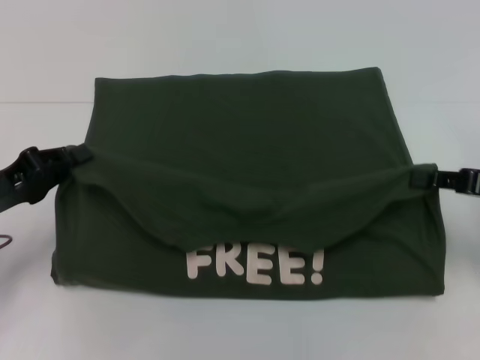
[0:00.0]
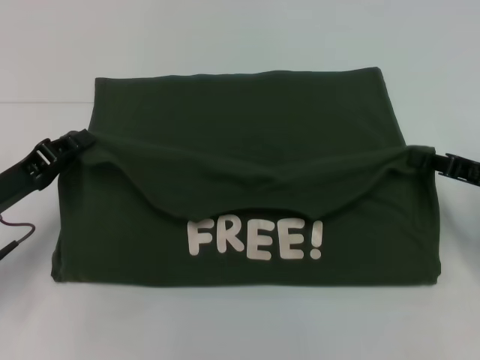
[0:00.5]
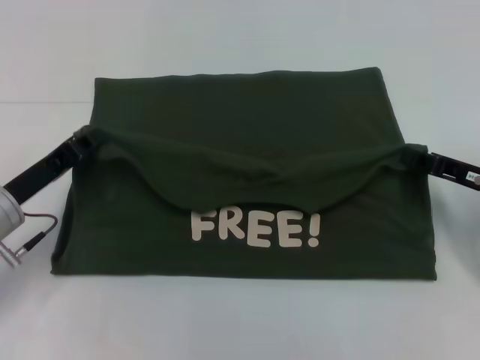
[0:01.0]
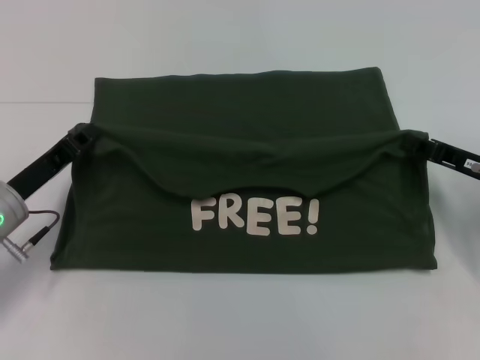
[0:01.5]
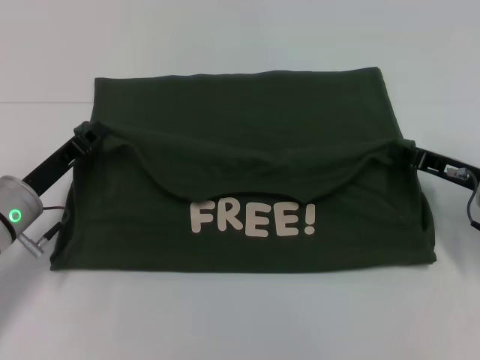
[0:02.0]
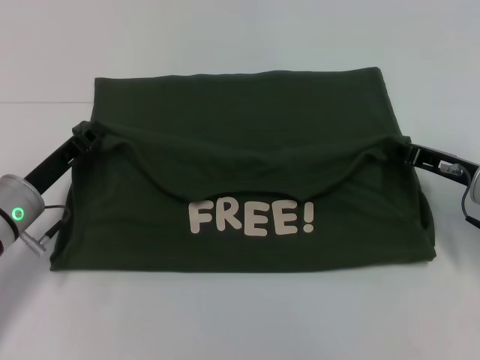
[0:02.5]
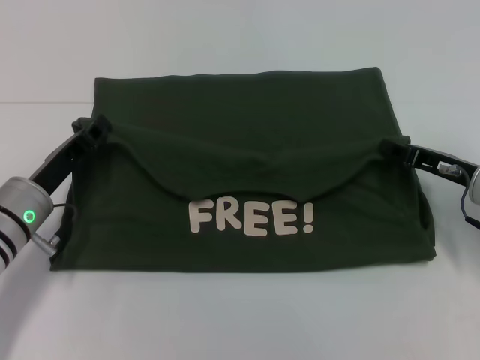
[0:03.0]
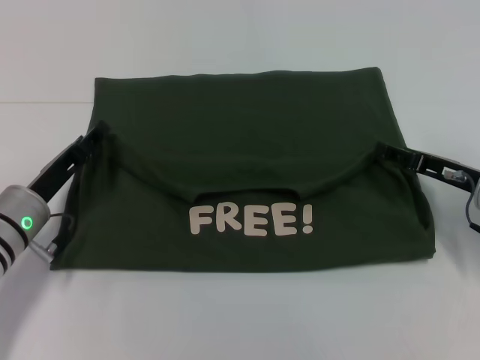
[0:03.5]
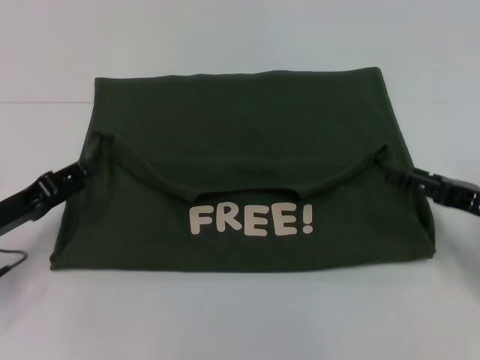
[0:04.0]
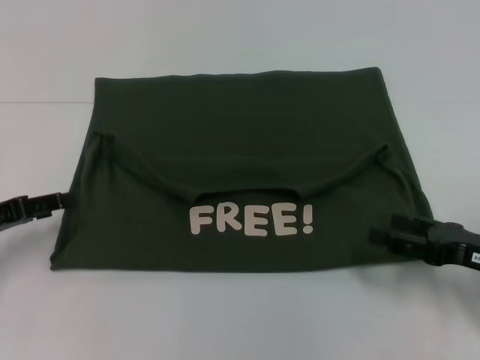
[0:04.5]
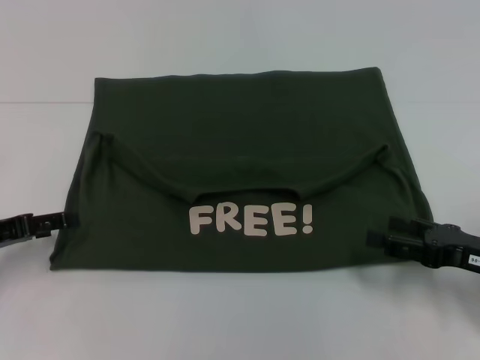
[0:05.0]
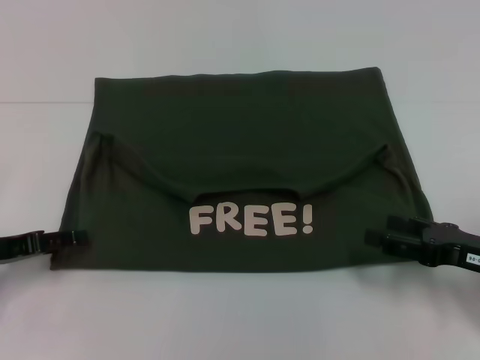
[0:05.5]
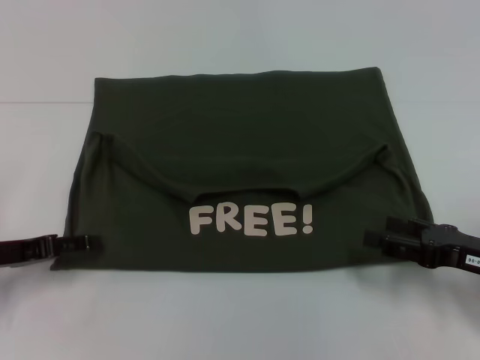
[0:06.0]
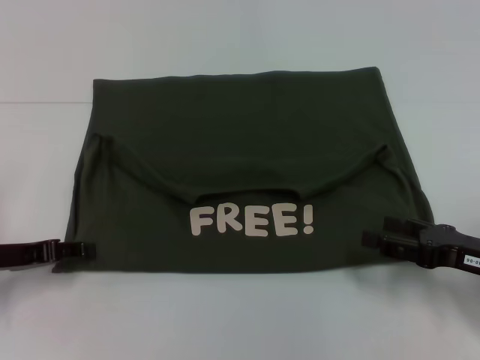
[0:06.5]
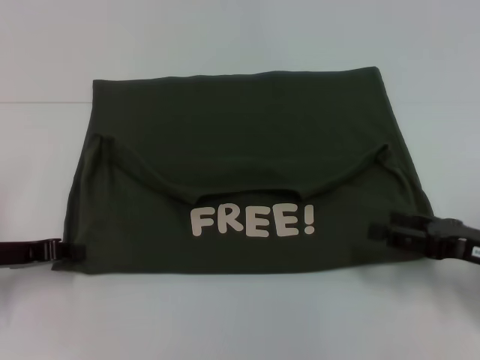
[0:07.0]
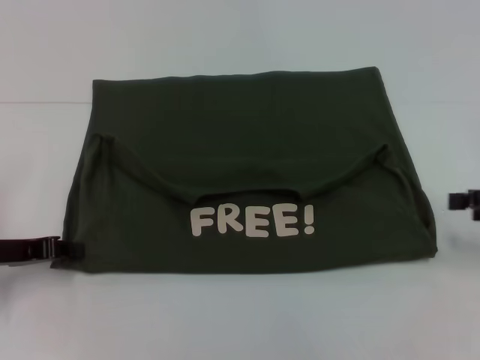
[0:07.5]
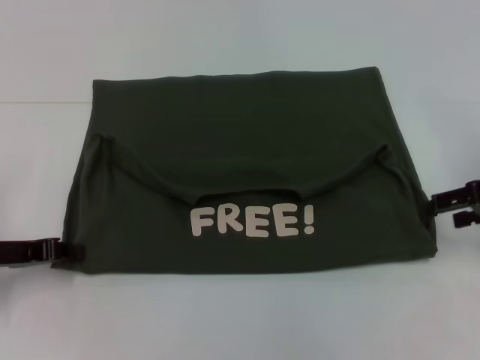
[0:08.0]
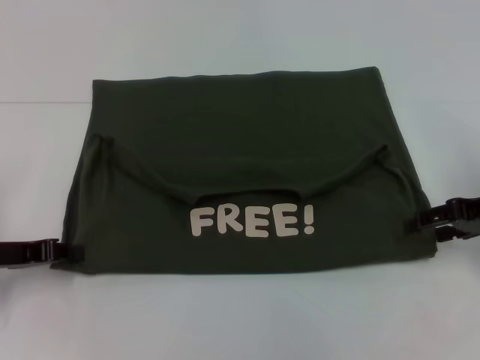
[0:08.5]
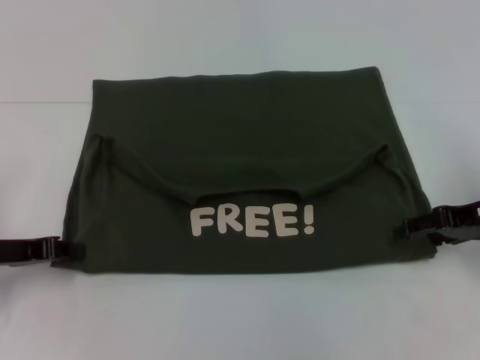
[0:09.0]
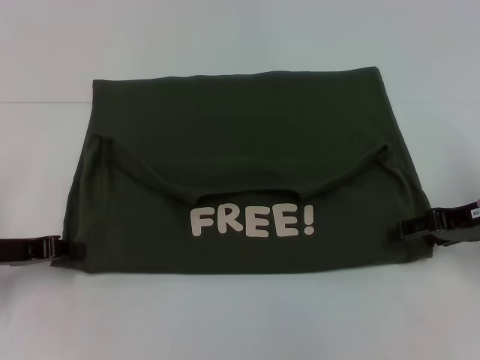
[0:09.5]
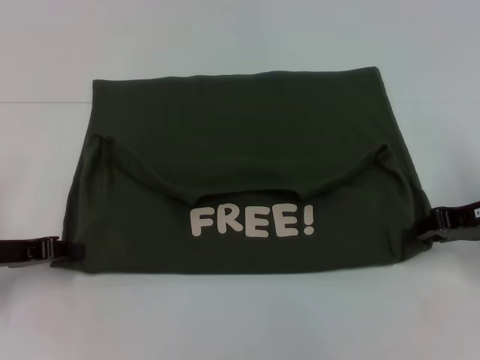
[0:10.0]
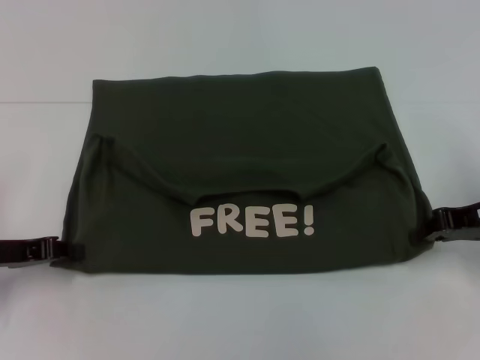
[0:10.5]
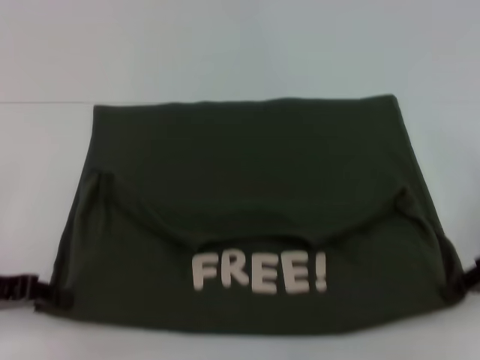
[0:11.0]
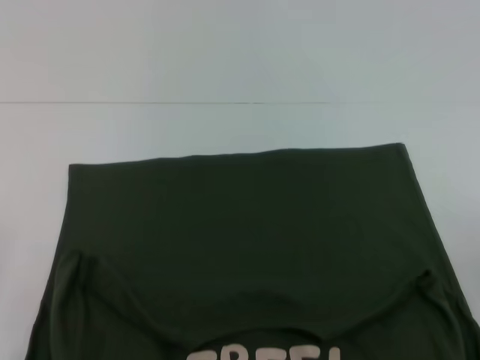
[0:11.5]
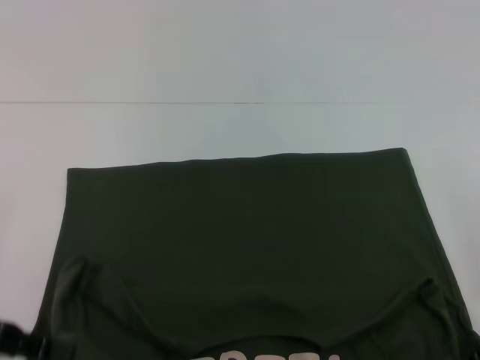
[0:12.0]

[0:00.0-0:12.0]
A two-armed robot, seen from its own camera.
Step, 0:00.0 to 0:03.5: Fold the clothes with your left hand.
Step, 0:00.0 to 0:03.5: Fold the clothes with your right hand.
Step, 0:04.0 to 0:11.5: Pull the clothes with your left hand.
Step, 0:04.0 to 0:11.5: Pull the clothes with your right hand.
0:00.0 to 0:02.0: The left gripper goes about 5 cm to the right. The right gripper moves downward, about 5 cm.
0:02.0 to 0:04.0: The left gripper goes about 5 cm to the left, and opens up. Meanwhile the right gripper goes some 5 cm backward, and opens up.
0:06.0 to 0:08.0: The right gripper is displaced upward and forward by about 15 cm. Meanwhile the left gripper closes.
0:08.0 to 0:10.0: The right gripper closes.
0:10.0 to 0:12.0: Both grippers move backward, roughly 10 cm.

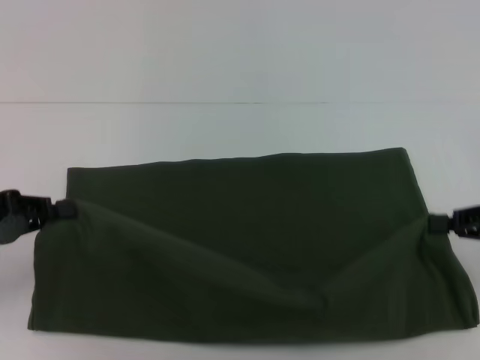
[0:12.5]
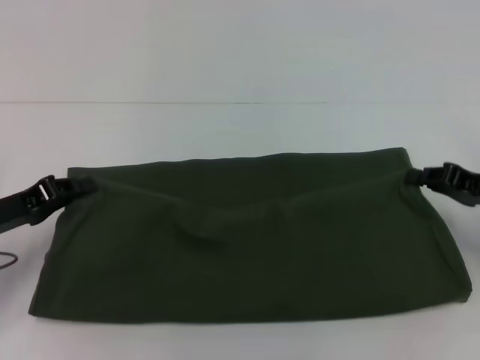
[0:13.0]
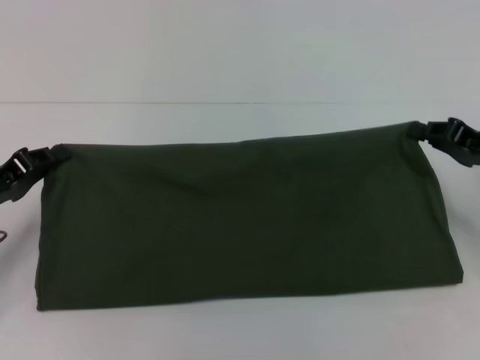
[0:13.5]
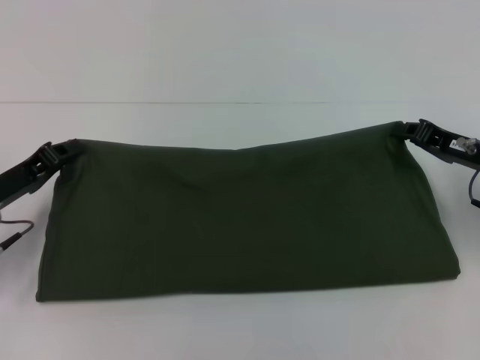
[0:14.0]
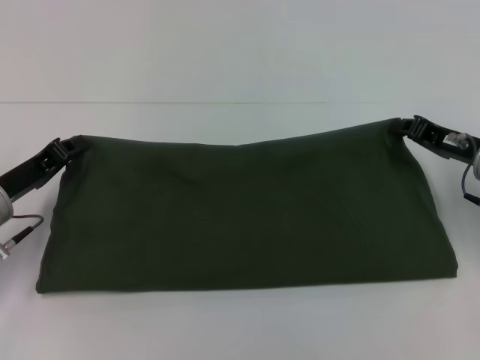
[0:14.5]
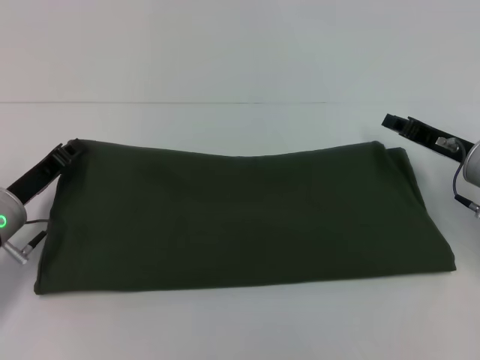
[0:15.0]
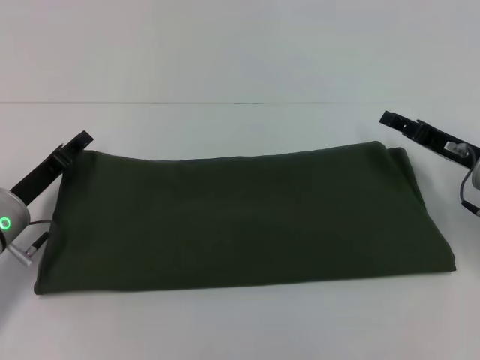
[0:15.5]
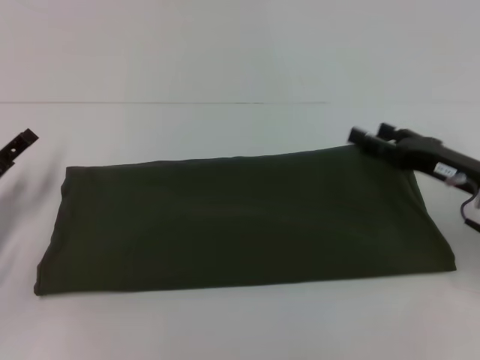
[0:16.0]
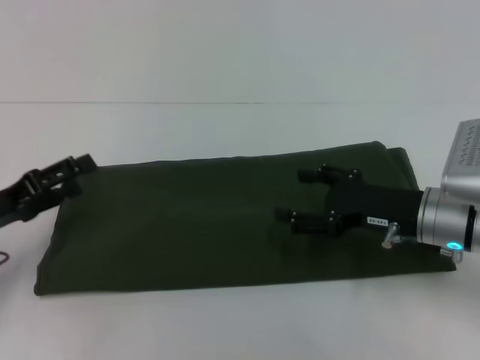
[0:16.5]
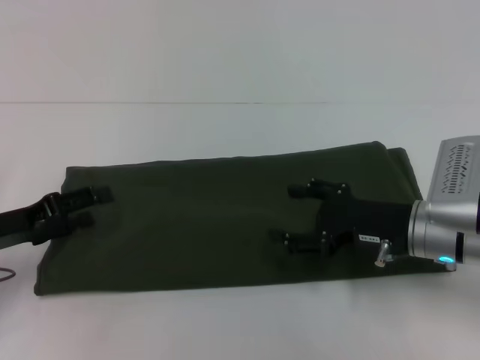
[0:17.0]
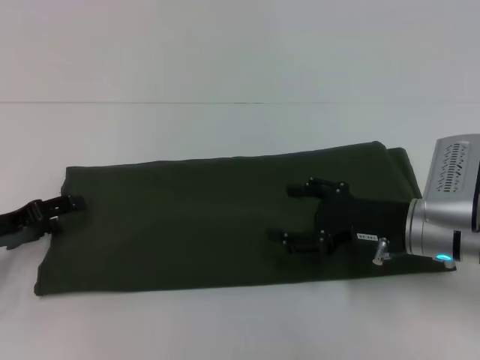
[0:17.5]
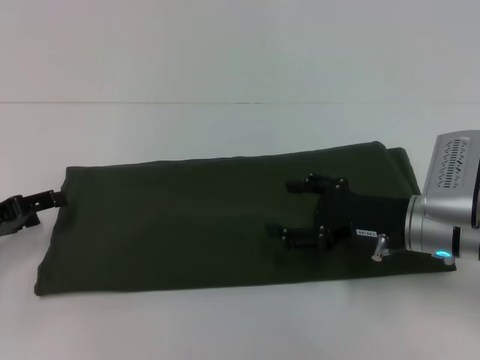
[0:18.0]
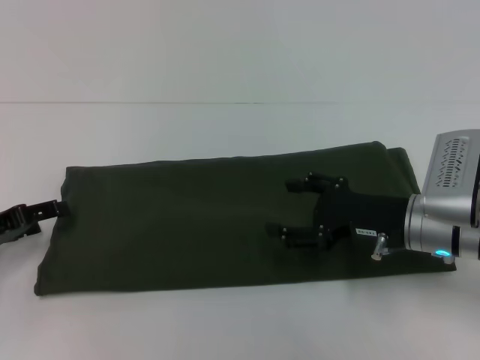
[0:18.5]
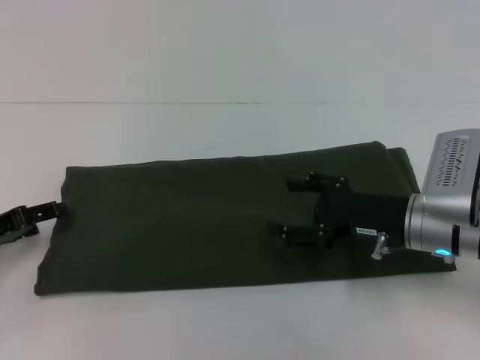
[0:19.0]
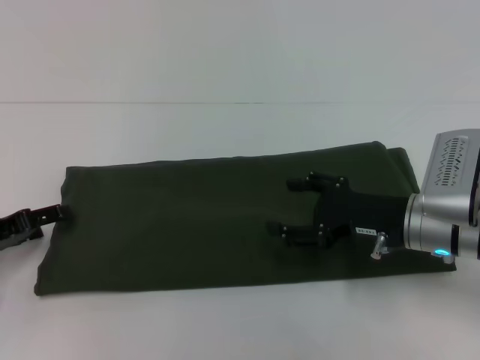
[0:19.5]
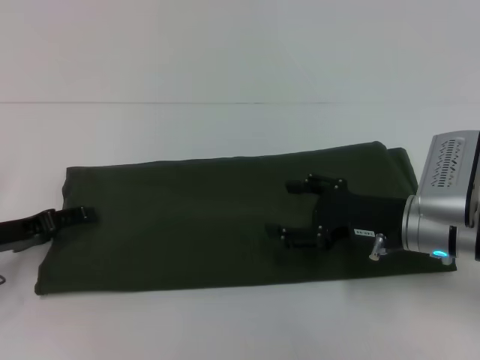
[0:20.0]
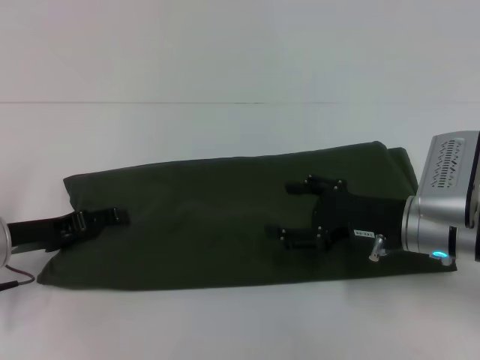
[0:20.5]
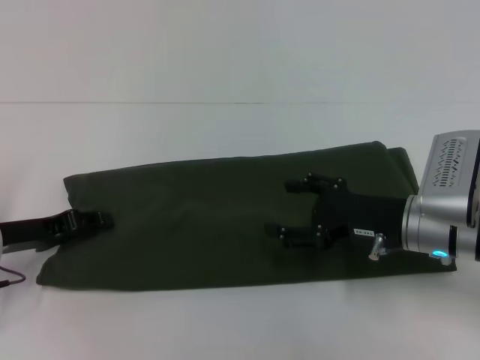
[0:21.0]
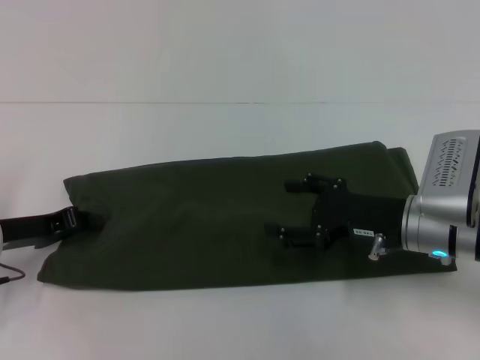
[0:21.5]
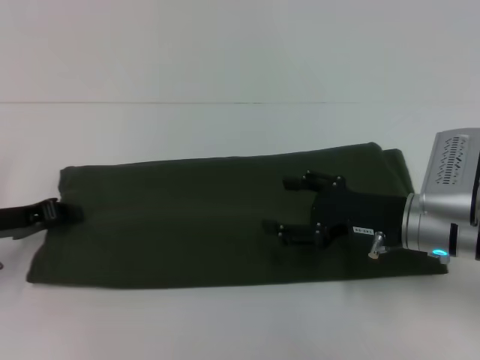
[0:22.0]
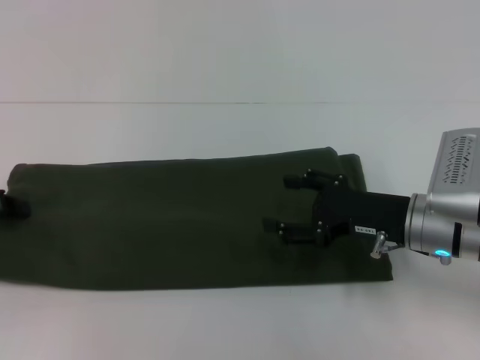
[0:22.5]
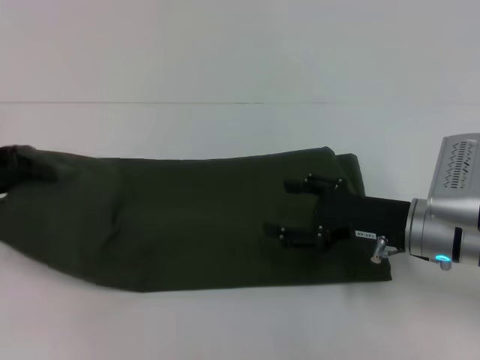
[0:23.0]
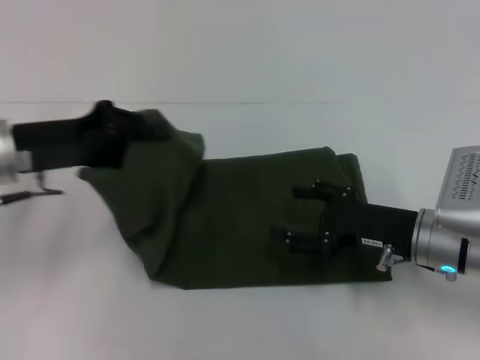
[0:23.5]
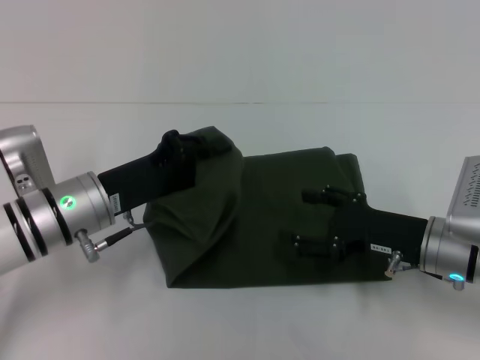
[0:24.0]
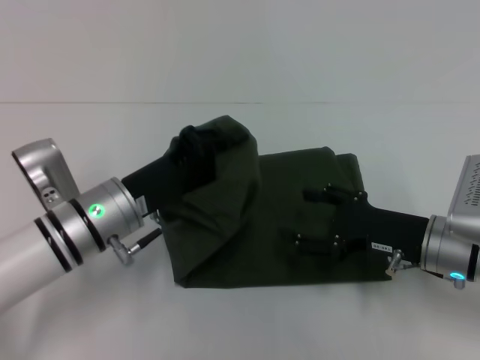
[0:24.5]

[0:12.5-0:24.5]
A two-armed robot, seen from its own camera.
Step, 0:12.5 to 0:15.5: Fold the clothes with your right hand.
0:12.5 to 0:14.5: The left gripper is displaced to the right, downward and forward by roughly 10 cm. Meanwhile the right gripper goes about 10 cm forward and to the left.
0:14.5 to 0:16.5: The left gripper moves approximately 5 cm, and opens up. The right gripper shifts about 10 cm to the left and backward, and opens up.
0:18.5 to 0:20.5: The left gripper moves to the right, some 5 cm.
0:20.5 to 0:22.5: The left gripper goes some 5 cm to the left, and closes up.
0:22.5 to 0:24.5: The left gripper travels to the right by roughly 20 cm.

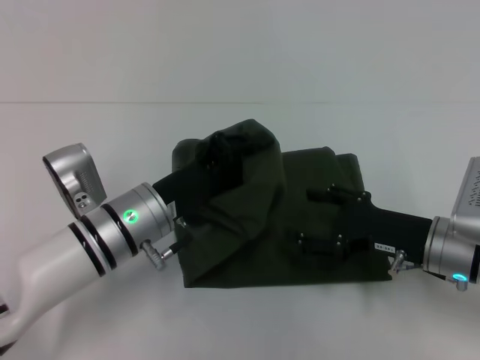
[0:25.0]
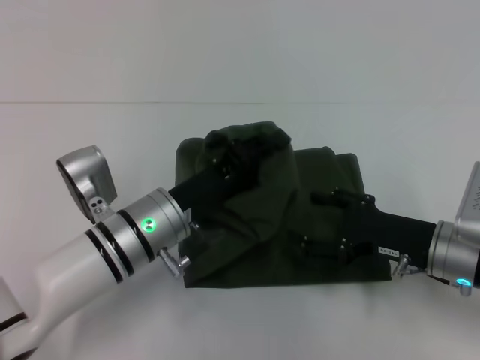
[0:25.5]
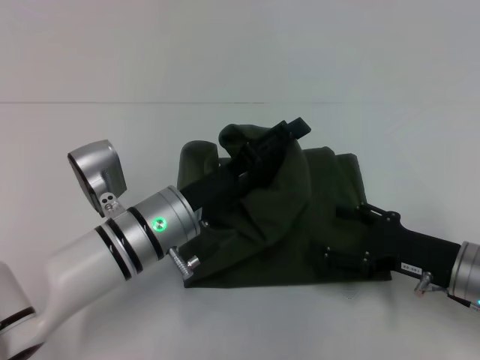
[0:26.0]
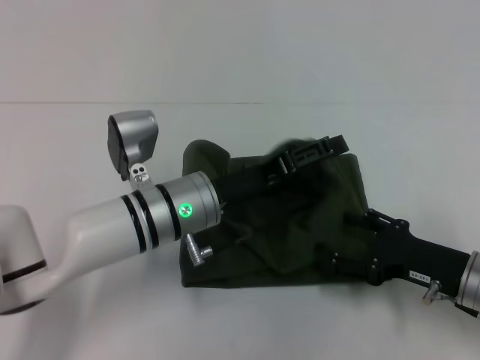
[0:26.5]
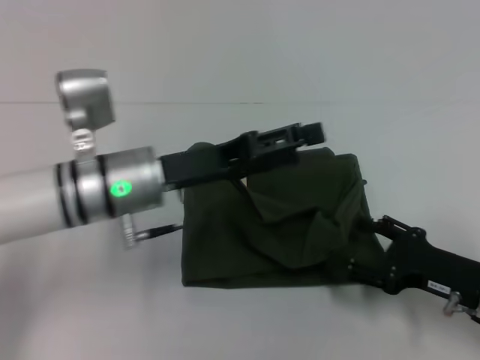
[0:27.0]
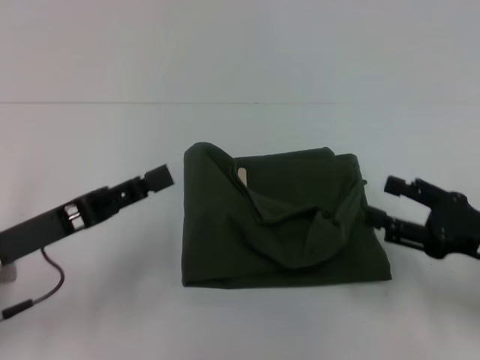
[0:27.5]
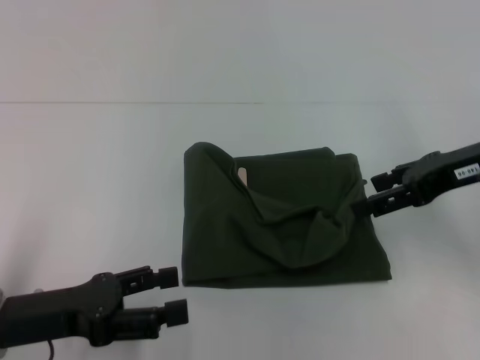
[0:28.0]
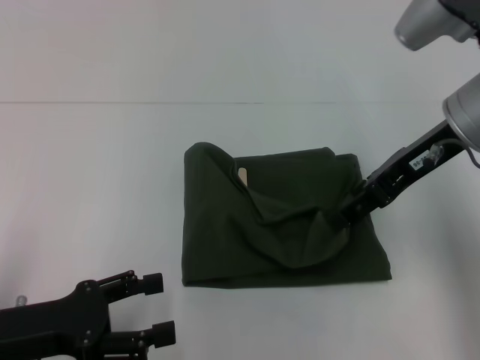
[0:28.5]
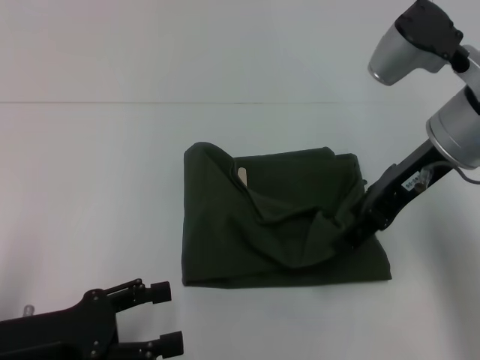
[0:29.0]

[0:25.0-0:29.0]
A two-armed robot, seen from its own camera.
0:25.0 to 0:27.0: The right gripper moves roughly 5 cm; the left gripper heads upward, covering approximately 5 cm, and opens.
0:27.0 to 0:29.0: The right gripper shifts roughly 25 cm upward, forward and to the left. The left gripper heads backward and to the left, covering some 20 cm.
